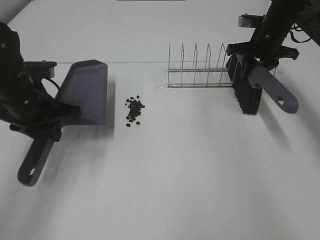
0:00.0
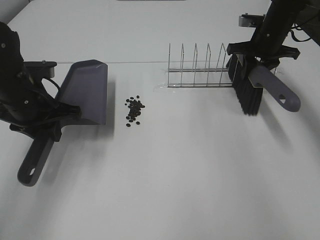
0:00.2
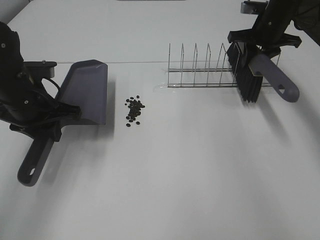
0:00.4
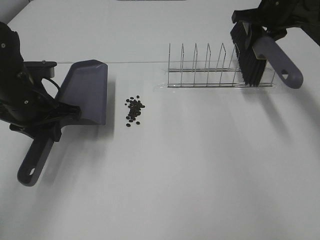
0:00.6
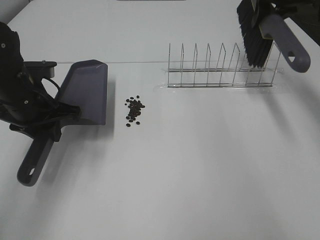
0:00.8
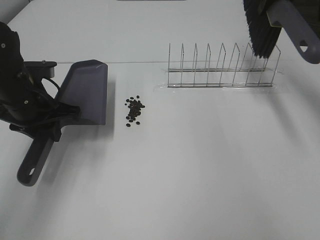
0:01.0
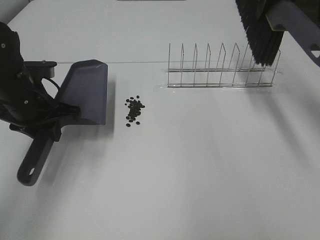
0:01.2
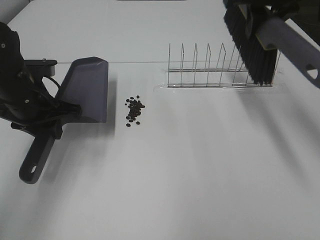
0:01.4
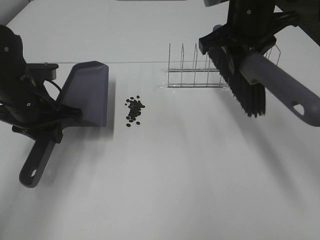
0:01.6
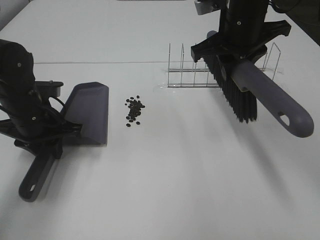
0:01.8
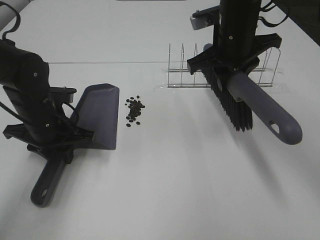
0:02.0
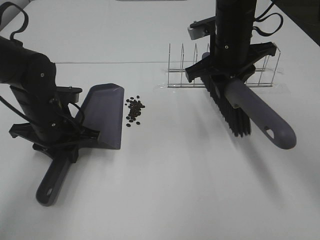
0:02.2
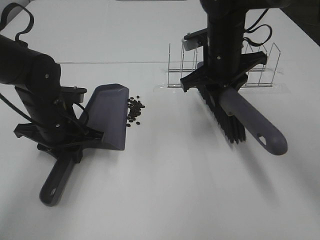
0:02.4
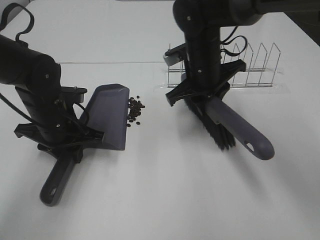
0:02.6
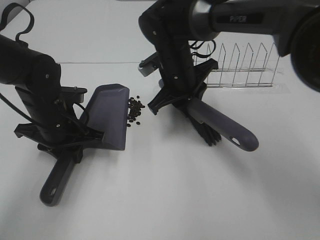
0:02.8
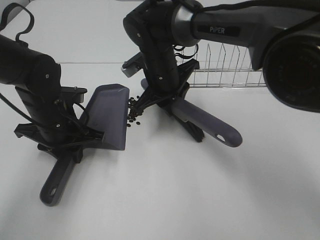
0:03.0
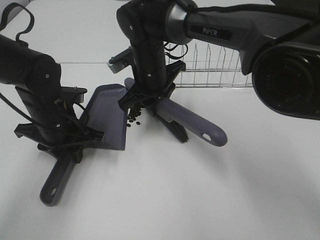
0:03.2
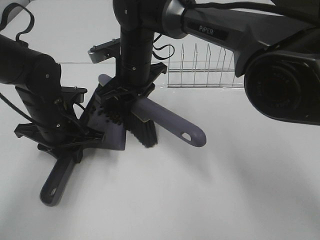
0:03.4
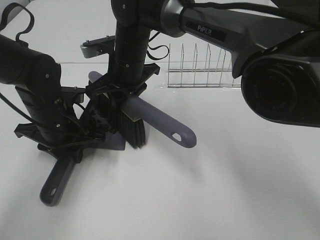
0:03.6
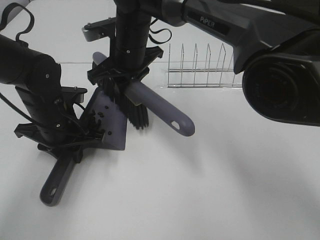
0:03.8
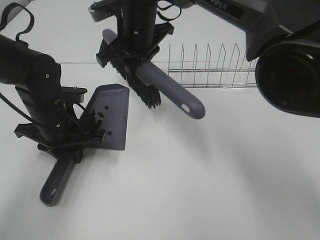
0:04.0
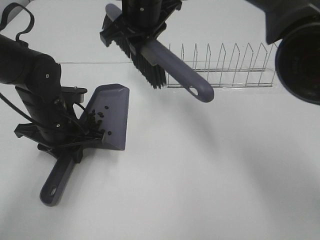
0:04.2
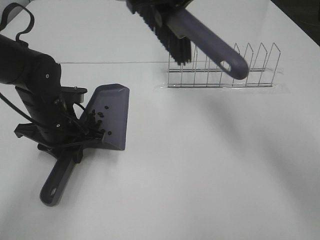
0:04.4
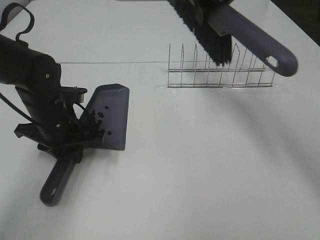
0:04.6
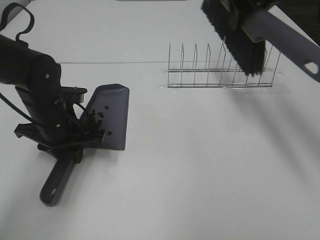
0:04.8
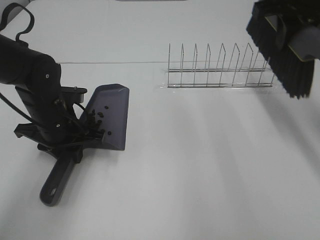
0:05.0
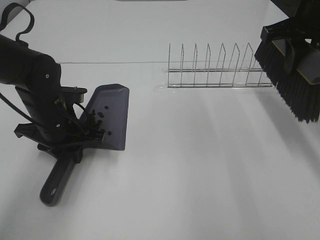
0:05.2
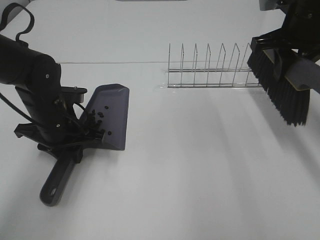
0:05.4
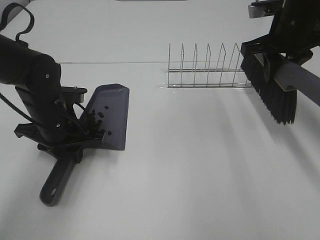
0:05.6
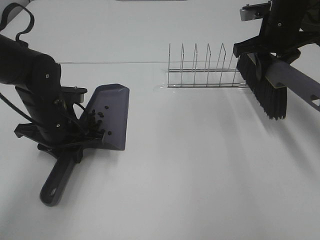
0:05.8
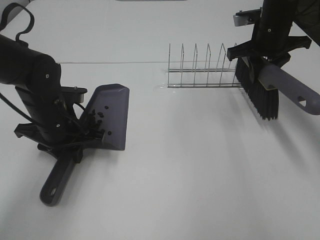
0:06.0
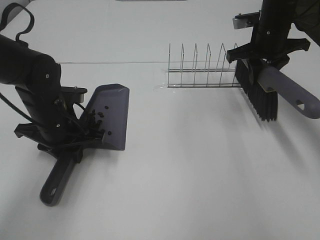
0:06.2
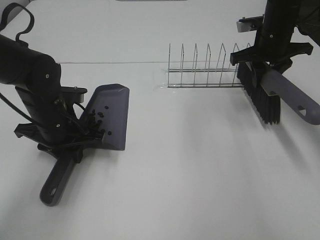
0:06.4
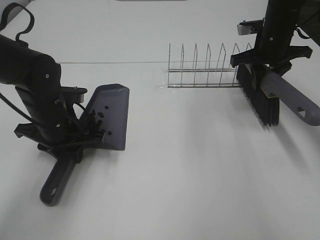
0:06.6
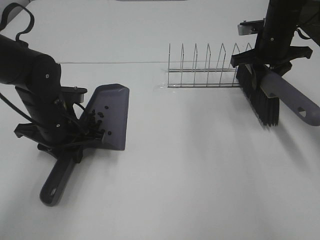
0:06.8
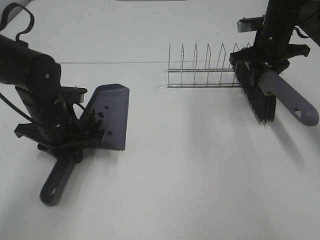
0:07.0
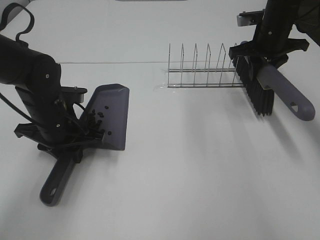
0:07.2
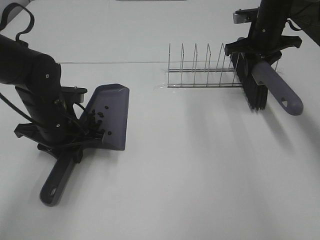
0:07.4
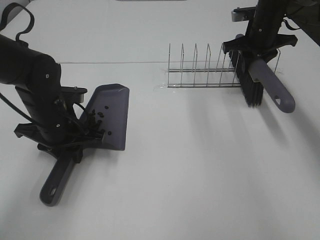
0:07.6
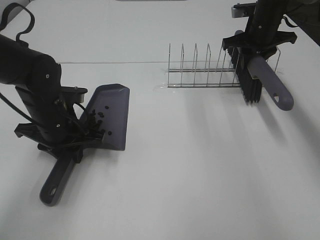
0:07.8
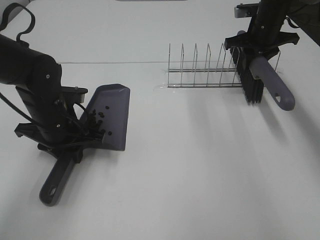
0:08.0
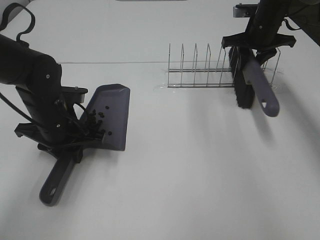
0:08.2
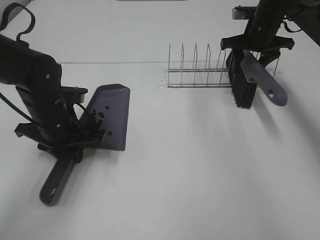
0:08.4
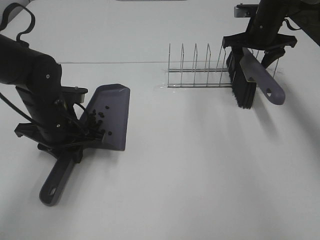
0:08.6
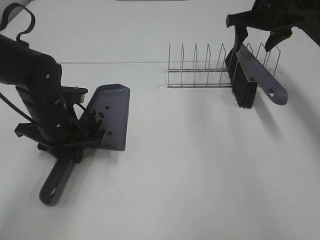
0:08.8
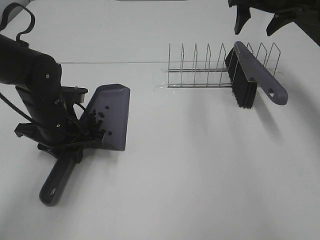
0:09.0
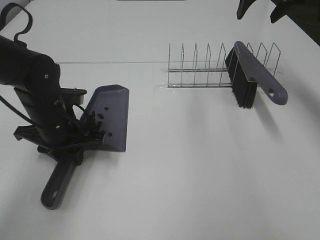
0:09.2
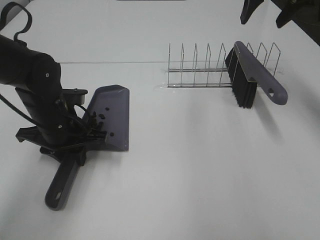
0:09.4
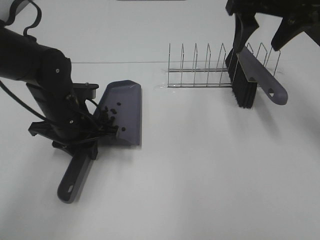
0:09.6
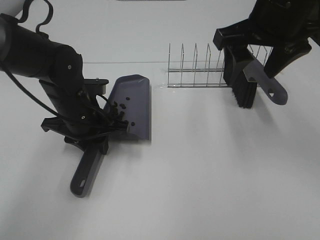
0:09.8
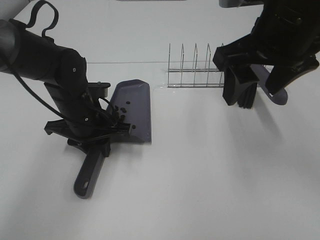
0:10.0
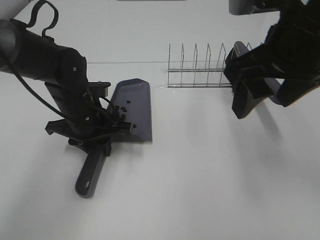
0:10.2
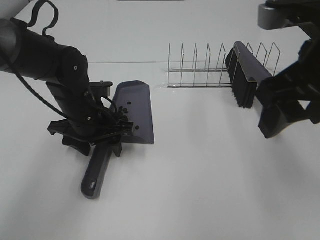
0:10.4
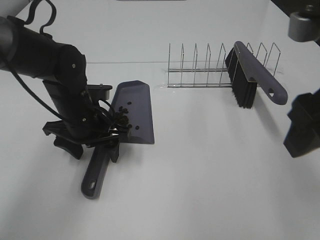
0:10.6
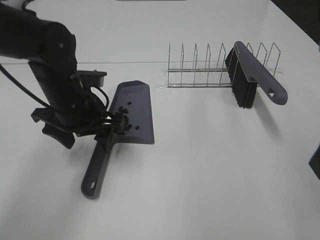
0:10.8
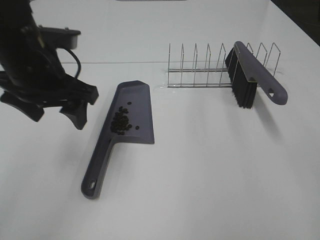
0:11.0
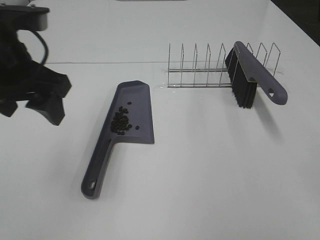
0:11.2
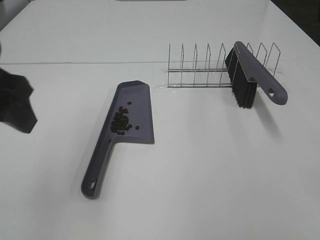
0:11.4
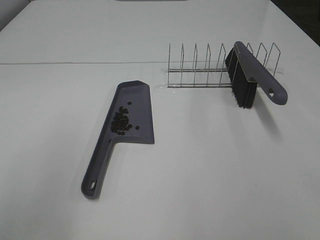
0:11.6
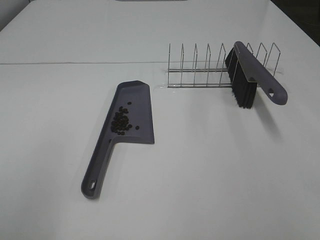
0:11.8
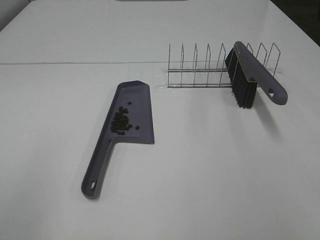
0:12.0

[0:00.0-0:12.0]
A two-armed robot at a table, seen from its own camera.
Task of the whole recording: Sweep Coffee Bean.
Step, 0:00.0 to 0:02.2: Left hand: move the dustpan to the left side of the coffee beans.
Step, 0:00.2 to 0:04.0: Right hand:sweep the coffee beans into the dustpan.
Step, 0:04.2 to 0:08.6: Right hand:place the broom on the rack.
Step, 0:08.8 to 0:10.4: Left hand:place the dustpan on the table.
0:00.0 to 0:01.6: The right gripper travels backward, to the left and upward by some 20 cm.
0:01.6 to 0:03.0: The left gripper ends up some 5 cm from where it was, while the right gripper shifts roughly 20 cm to the left and downward.
0:03.0 to 0:04.4: The right gripper shifts approximately 20 cm upward.
0:04.4 to 0:06.0: The right gripper moves to the right and downward, roughly 20 cm.
0:06.0 to 0:07.6: The right gripper heads forward, covering about 5 cm.
0:07.6 to 0:09.0: The right gripper shifts about 10 cm upward, and opens up.
0:09.0 to 0:10.4: The right gripper moves backward, approximately 30 cm, while the left gripper opens up.
0:10.4 to 0:12.0: The left gripper moves backward, upward and to the left, approximately 35 cm; the right gripper goes approximately 20 cm backward and to the right.

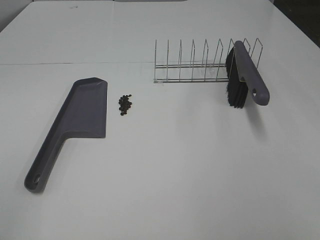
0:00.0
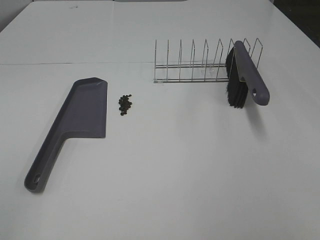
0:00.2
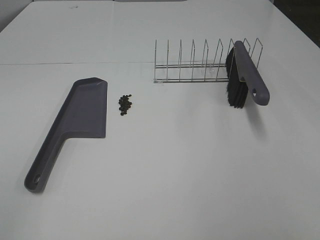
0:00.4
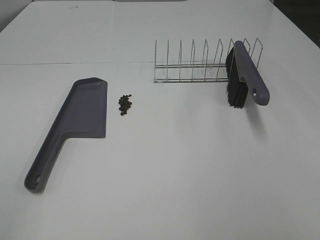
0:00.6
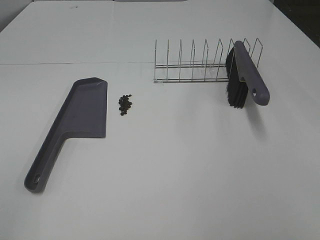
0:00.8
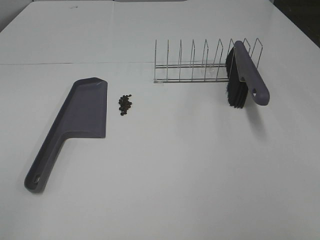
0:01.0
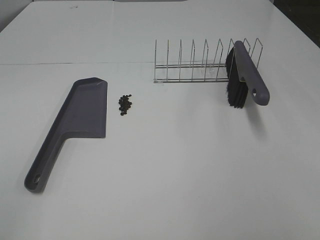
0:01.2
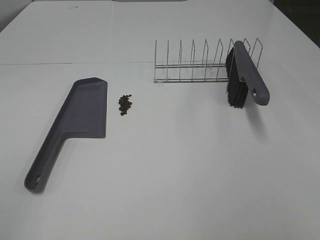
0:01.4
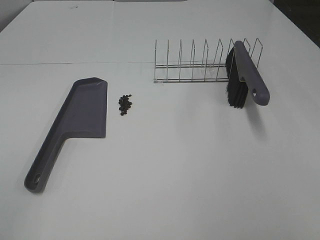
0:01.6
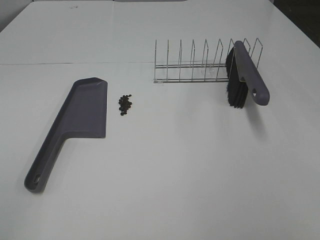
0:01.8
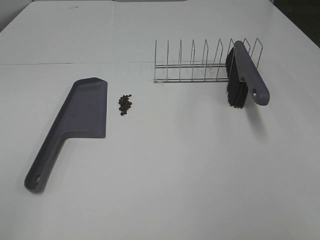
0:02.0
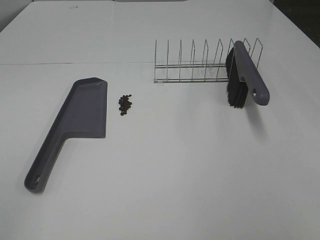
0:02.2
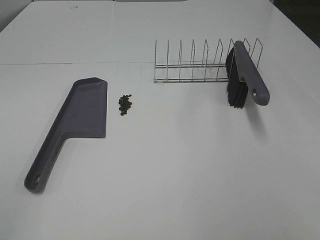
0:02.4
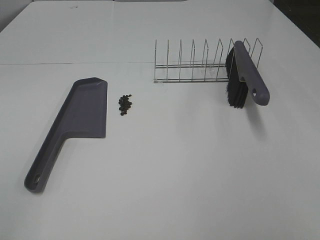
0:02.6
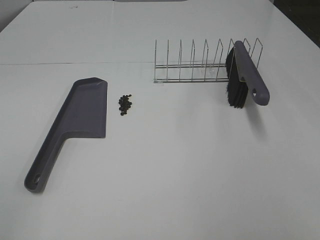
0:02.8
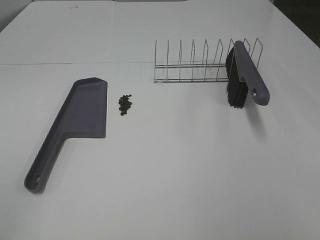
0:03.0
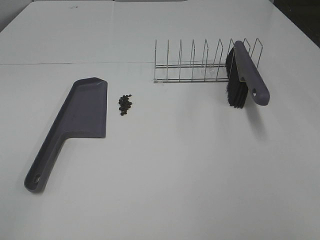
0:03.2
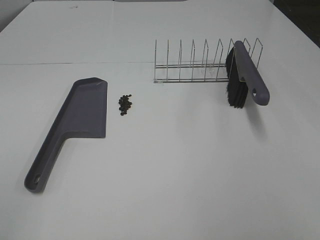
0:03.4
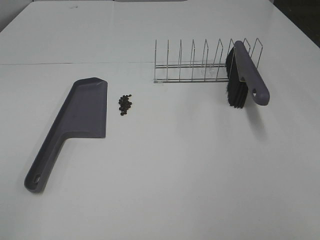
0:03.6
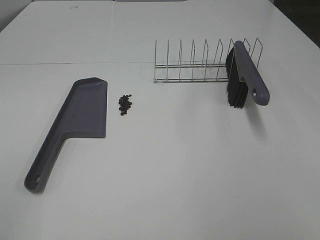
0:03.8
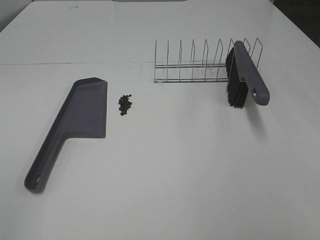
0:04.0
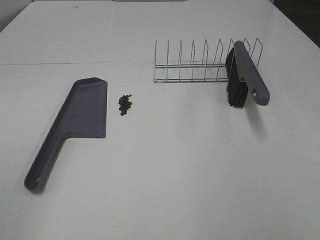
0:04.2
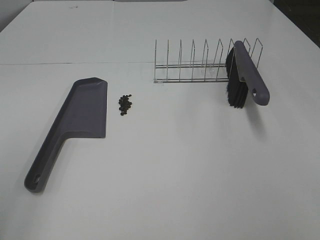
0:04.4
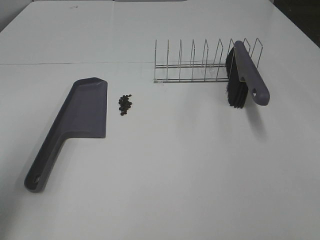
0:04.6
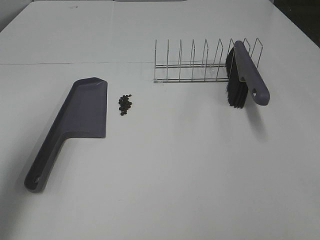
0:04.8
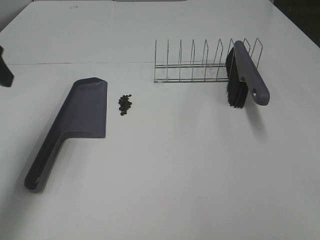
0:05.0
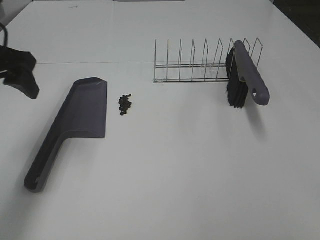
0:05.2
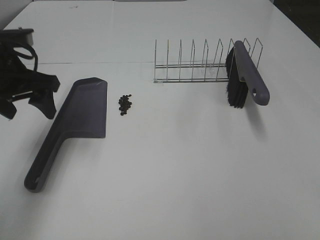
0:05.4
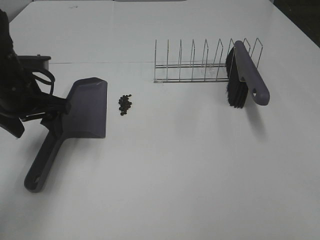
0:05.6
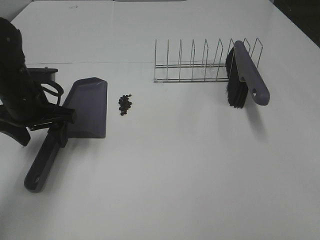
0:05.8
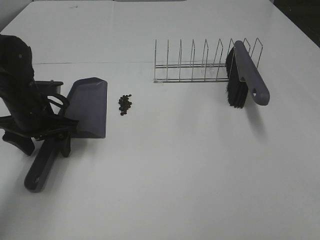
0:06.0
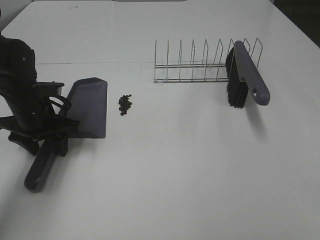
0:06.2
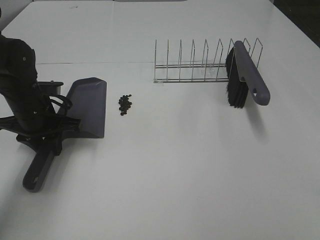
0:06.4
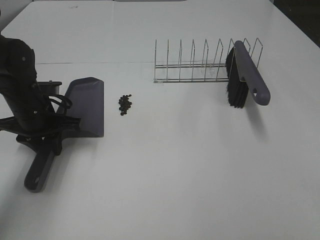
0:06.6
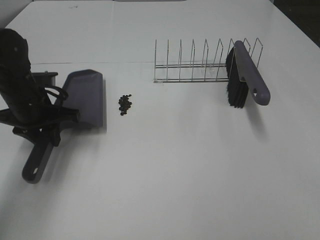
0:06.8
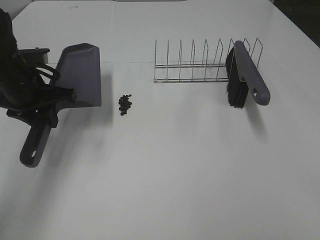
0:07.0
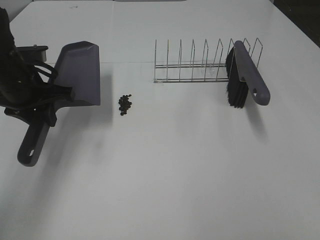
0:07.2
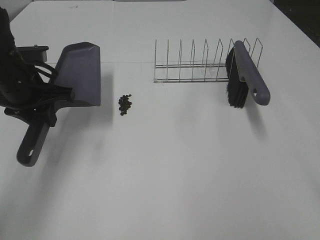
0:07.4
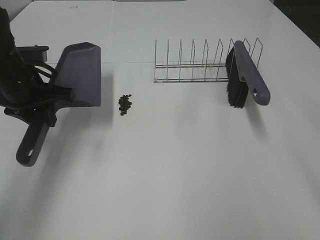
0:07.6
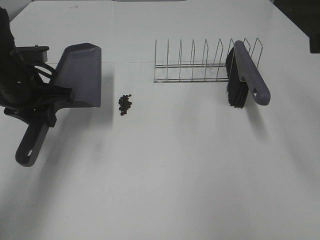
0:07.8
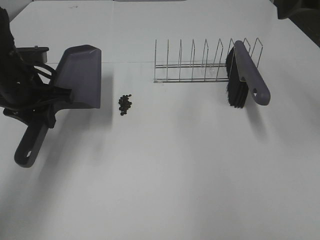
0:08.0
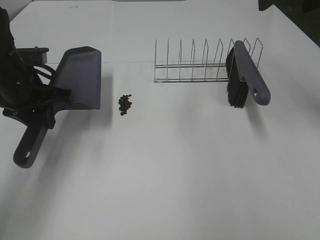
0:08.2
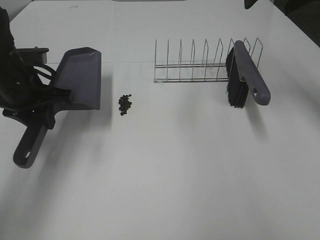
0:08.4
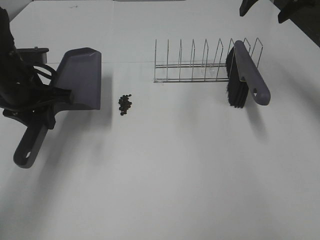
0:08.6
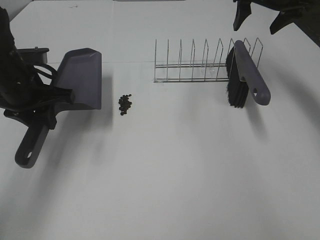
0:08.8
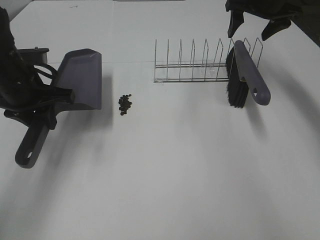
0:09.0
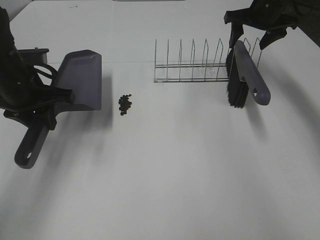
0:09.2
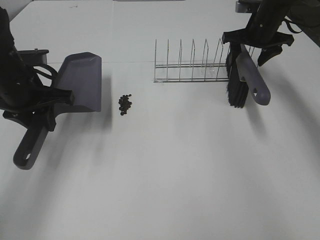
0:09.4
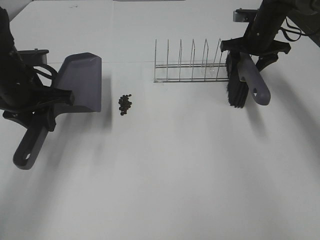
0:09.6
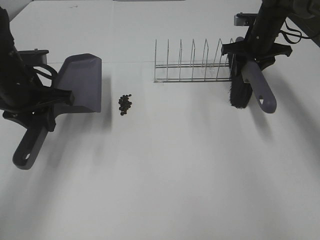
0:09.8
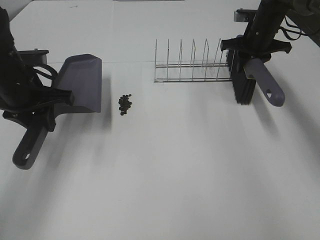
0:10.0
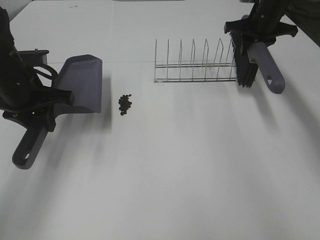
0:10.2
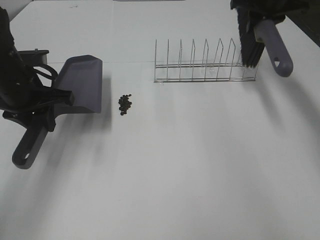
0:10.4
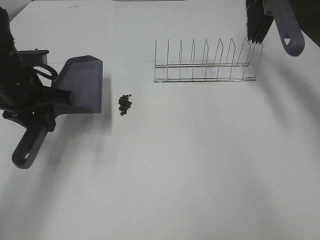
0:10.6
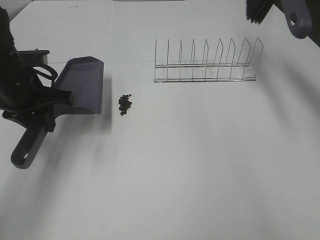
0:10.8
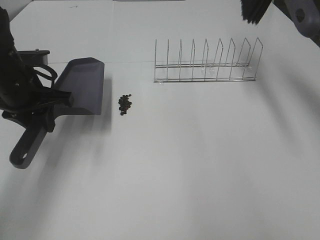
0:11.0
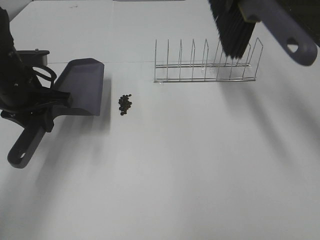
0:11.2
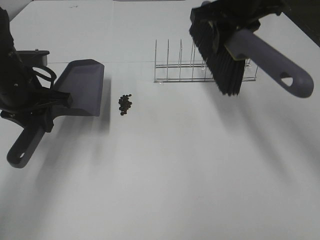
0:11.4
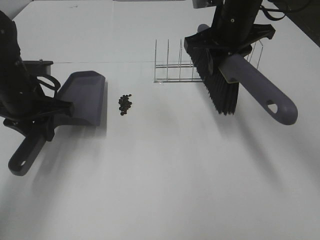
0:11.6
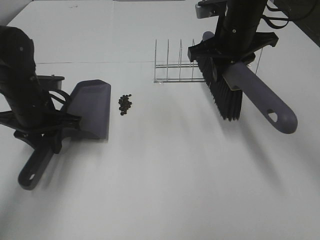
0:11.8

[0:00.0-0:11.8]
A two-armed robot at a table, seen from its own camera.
Task of the whole recording: Sweep Coffee Bean.
Step, 0:00.0 to 0:06.6: Left hand: grab the dustpan.
Step, 0:07.0 to 0:09.8: Right hand:grab the broom.
0:00.0 to 0:03.0: Neither gripper changes place.
0:04.4 to 0:06.0: The left gripper is displaced forward and downward by about 35 cm.
0:06.0 to 0:07.4: The left gripper travels upward by approximately 5 cm, and closes up.
0:07.4 to 0:08.8: The right gripper is displaced forward by about 40 cm.
0:08.8 to 0:10.4: The right gripper reaches about 10 cm downward, then returns, and closes its fingers.
0:10.4 to 0:11.8: The right gripper goes approximately 15 cm backward and to the left, and travels upward and back again, some 10 cm each way; the left gripper is displaced downward by some 5 cm.
